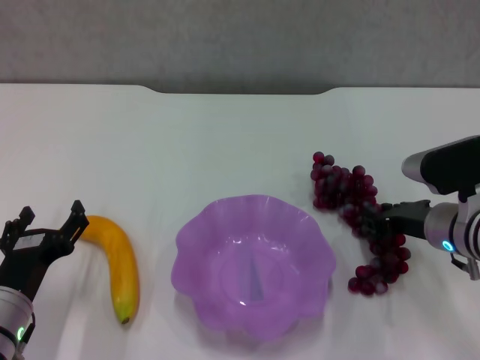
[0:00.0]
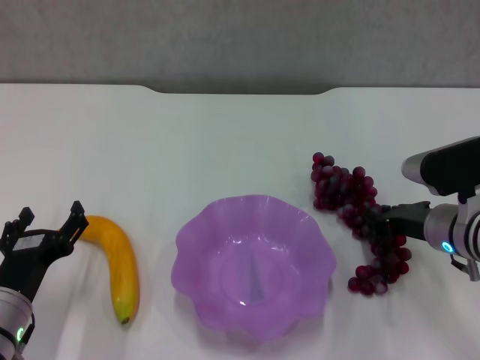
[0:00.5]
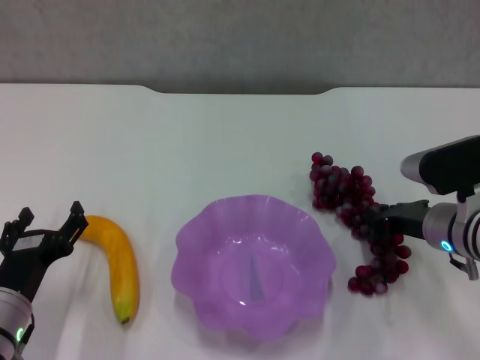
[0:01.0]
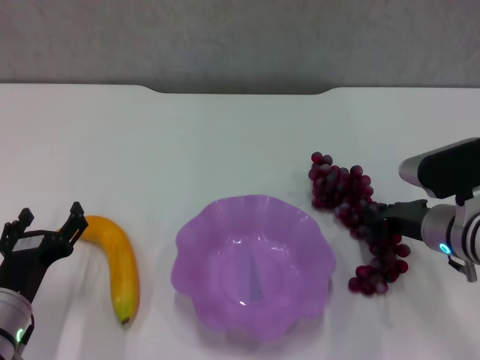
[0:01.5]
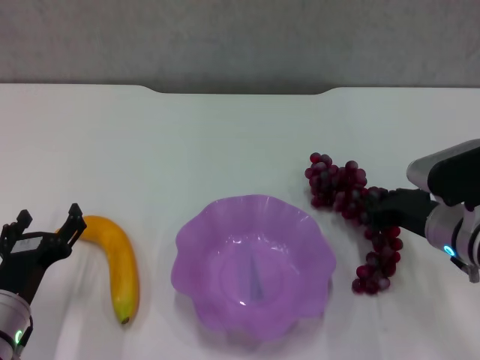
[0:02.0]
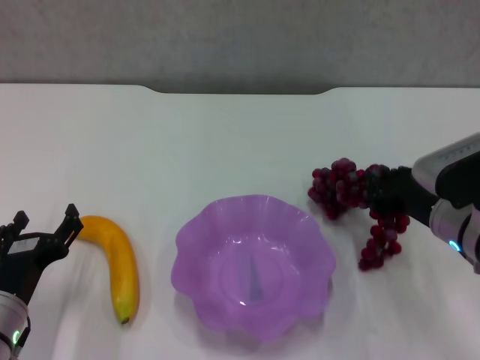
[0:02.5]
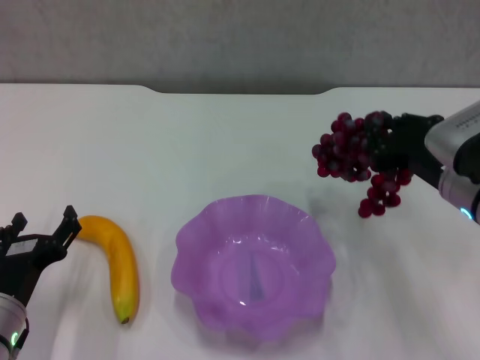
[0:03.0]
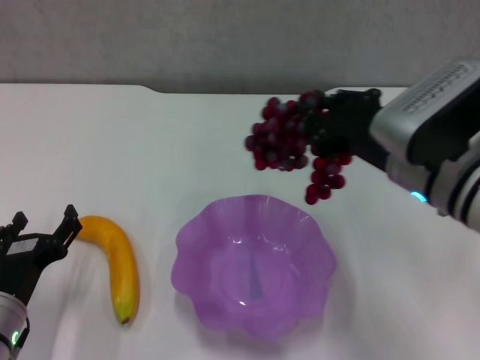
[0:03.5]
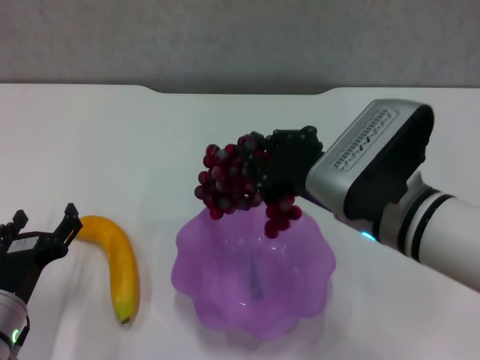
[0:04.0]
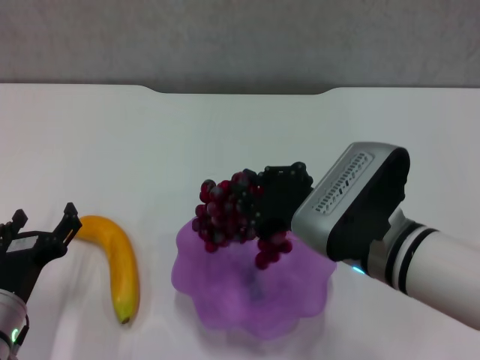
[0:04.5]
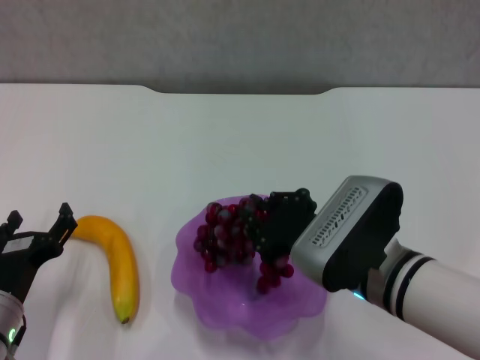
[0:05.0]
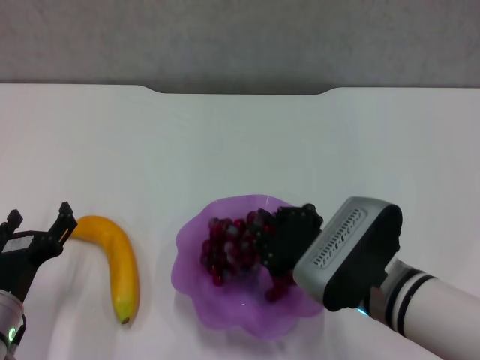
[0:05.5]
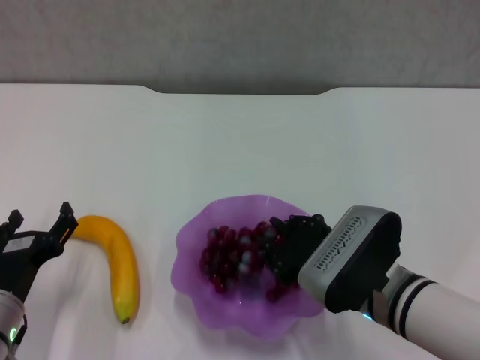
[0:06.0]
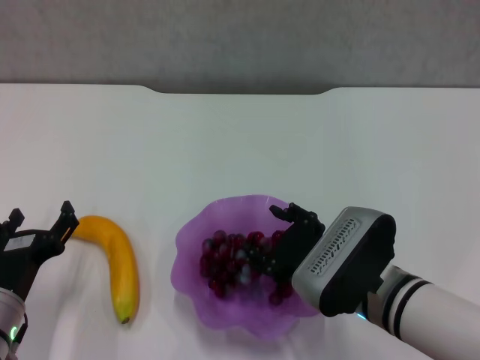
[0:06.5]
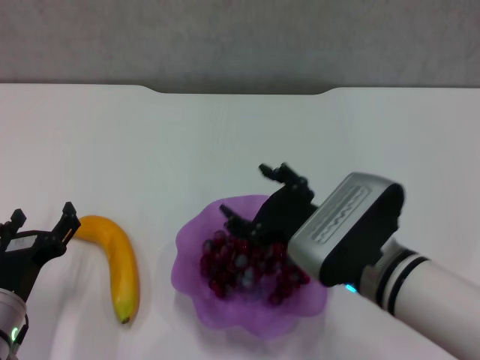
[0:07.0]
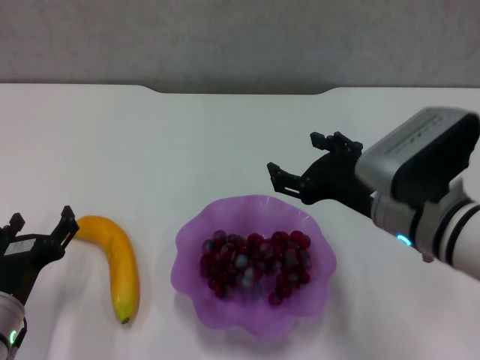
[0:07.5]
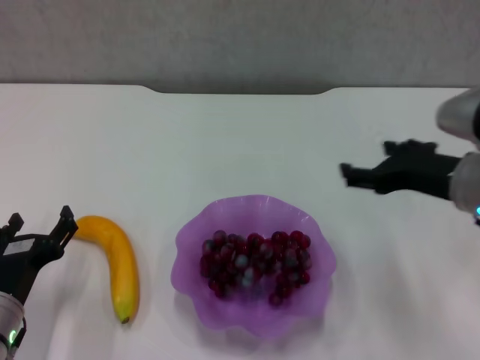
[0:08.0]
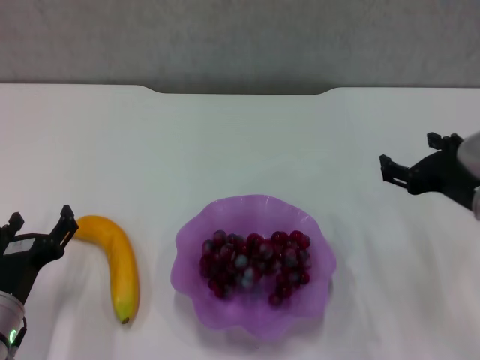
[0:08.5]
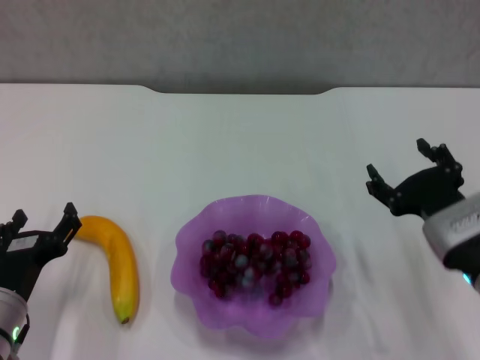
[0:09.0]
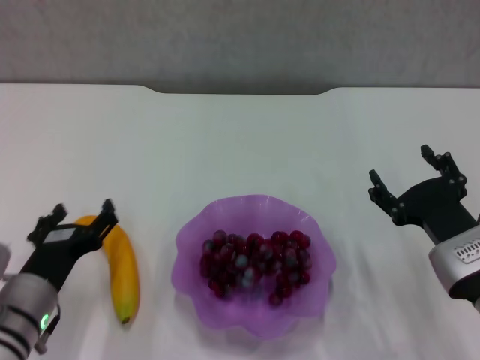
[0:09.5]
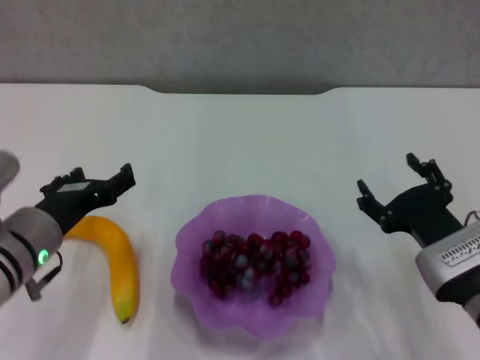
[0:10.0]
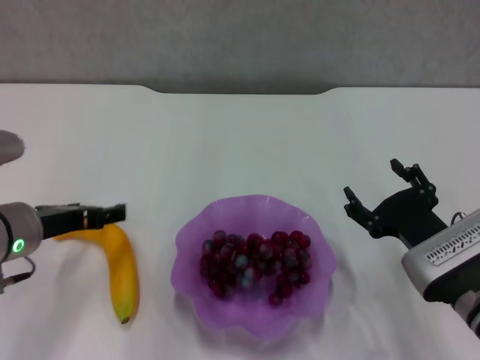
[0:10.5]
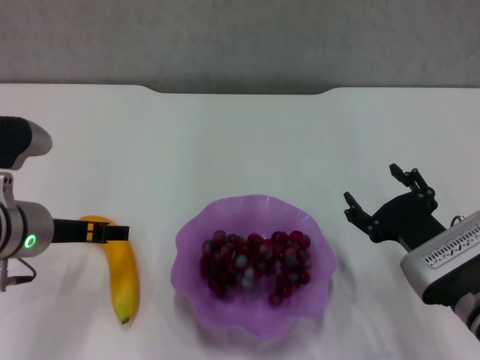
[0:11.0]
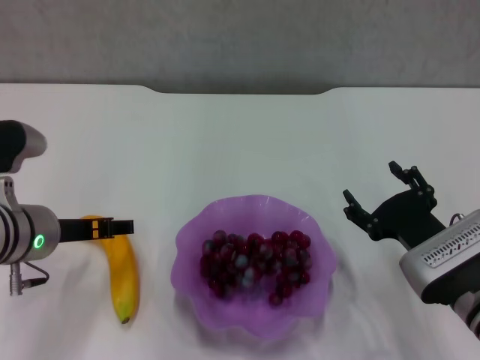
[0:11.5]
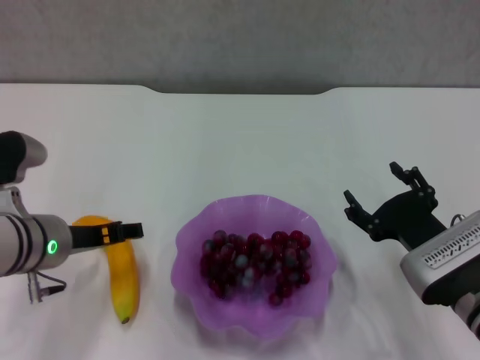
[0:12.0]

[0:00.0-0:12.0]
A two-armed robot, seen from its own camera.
Step, 0:01.5 to 0:07.0: Place the grape in the purple plate with right gripper.
0:00.0 to 0:02.0: There are only small adjustments of the grippers.
0:02.0 to 0:04.0: The right gripper heads to the left and upward, covering some 15 cm.
0:04.0 to 0:06.0: The right gripper shifts approximately 10 cm downward.
0:06.0 to 0:08.0: The right gripper heads upward and to the right, covering approximately 15 cm, and opens its fingers.
0:08.0 to 0:10.0: The right gripper moves downward, roughly 10 cm; the left gripper shifts roughly 10 cm upward.

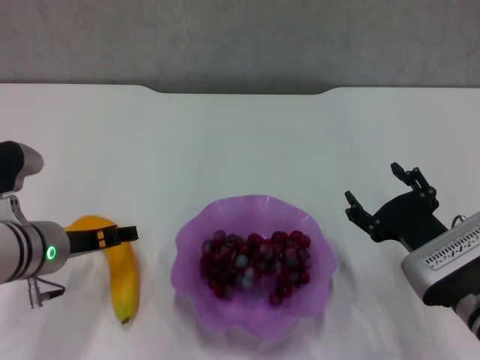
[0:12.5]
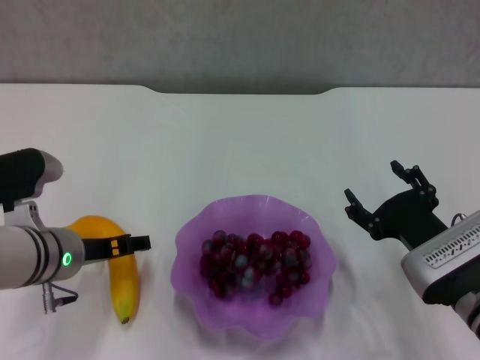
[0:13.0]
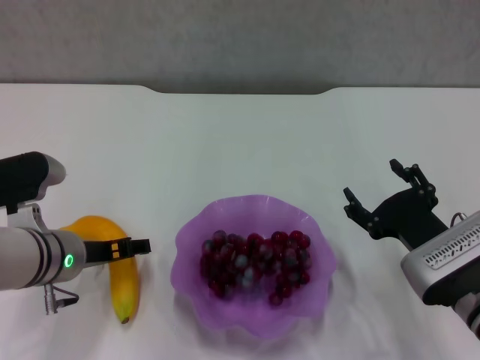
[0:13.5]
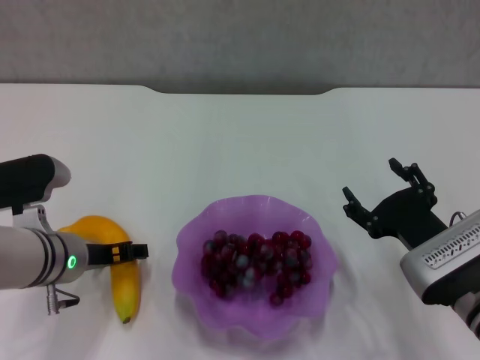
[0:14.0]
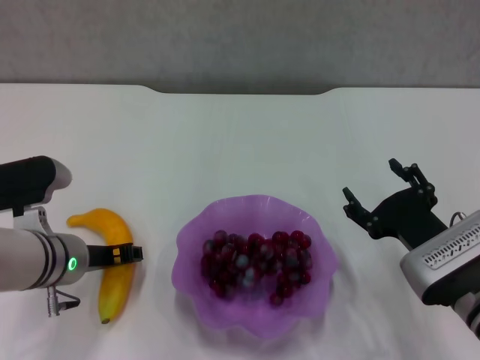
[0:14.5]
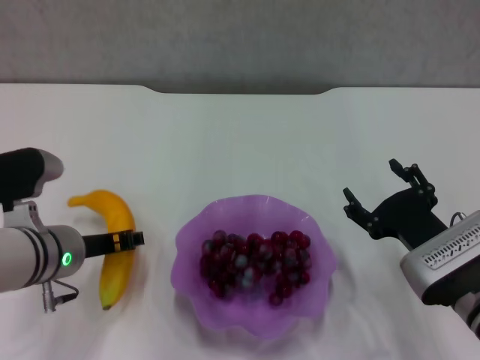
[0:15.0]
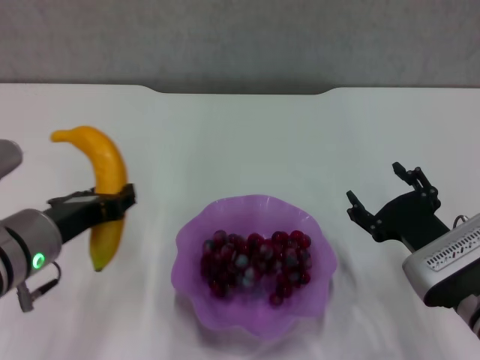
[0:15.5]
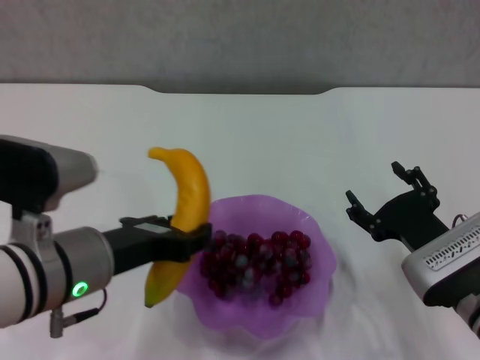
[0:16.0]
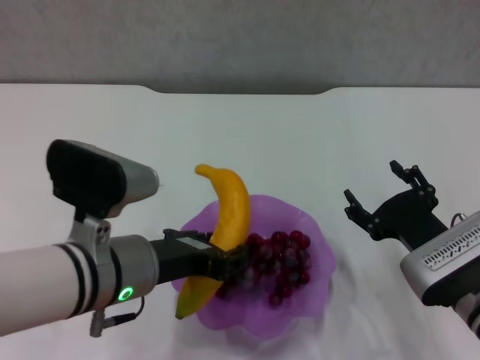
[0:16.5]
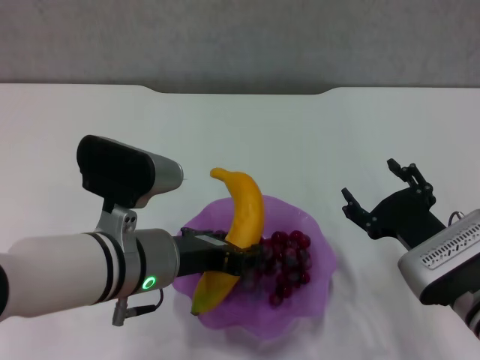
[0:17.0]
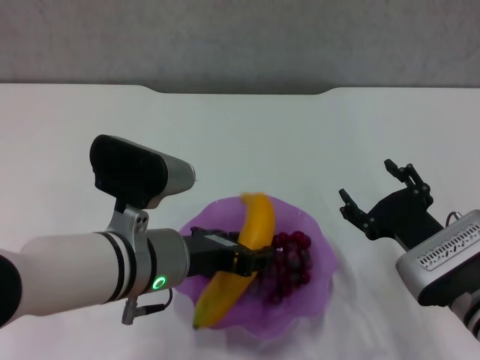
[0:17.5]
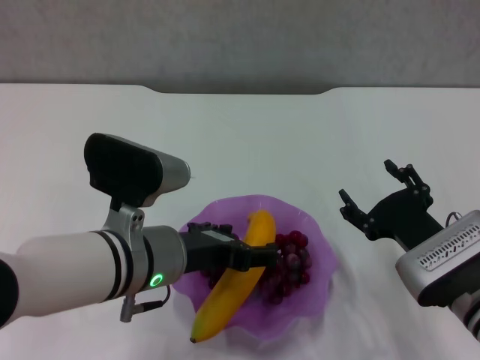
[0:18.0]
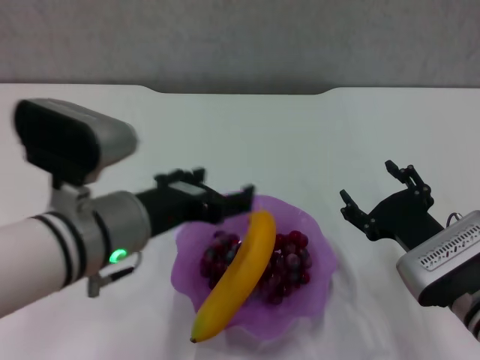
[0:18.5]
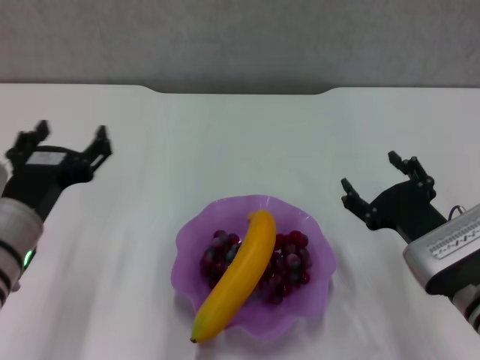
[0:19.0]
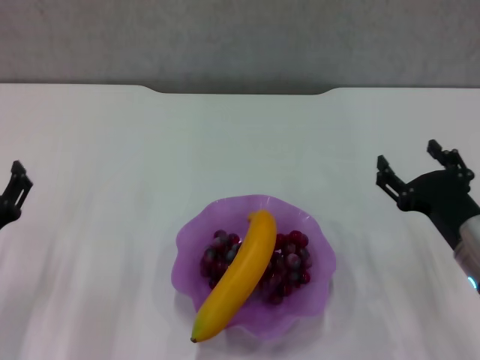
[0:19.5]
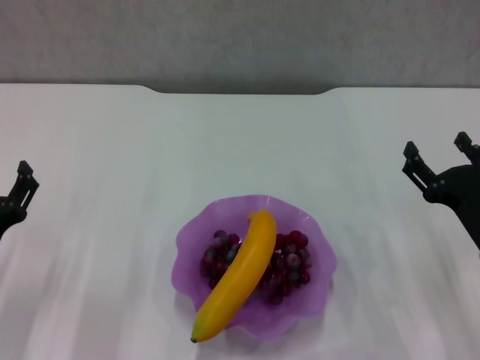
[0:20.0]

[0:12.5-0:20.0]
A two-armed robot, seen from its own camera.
Step, 0:12.5 to 0:14.5: Grasp the banana with left gripper.
Step, 0:15.0 to 0:18.5: Place the banana in the purple plate with left gripper.
0:12.5 to 0:14.5: The left gripper closes its fingers.
0:14.5 to 0:16.5: The left gripper travels to the right, upward and backward by some 10 cm, and closes.
0:16.5 to 0:18.0: The left gripper opens.
0:18.0 to 0:20.0: The right gripper heads to the right, covering some 5 cm, while the left gripper goes some 20 cm to the left and downward.

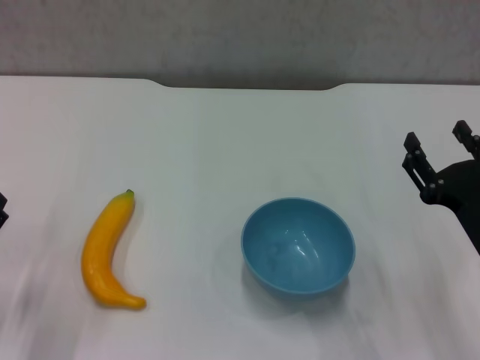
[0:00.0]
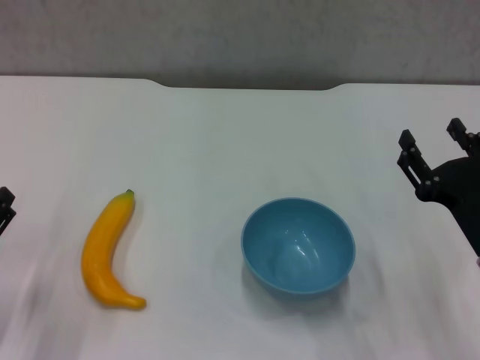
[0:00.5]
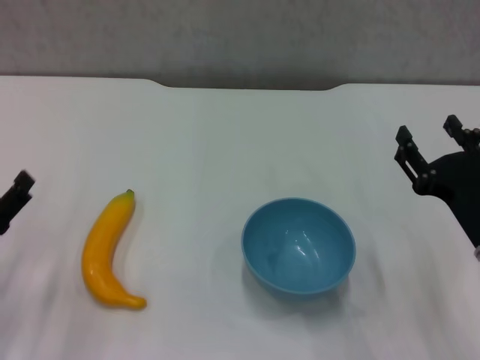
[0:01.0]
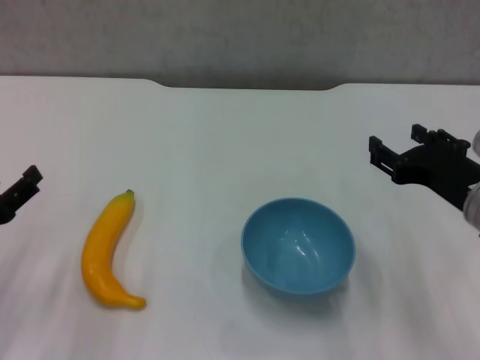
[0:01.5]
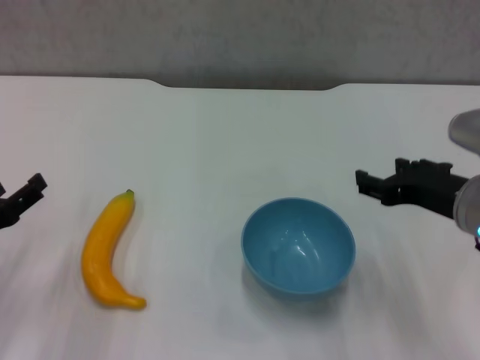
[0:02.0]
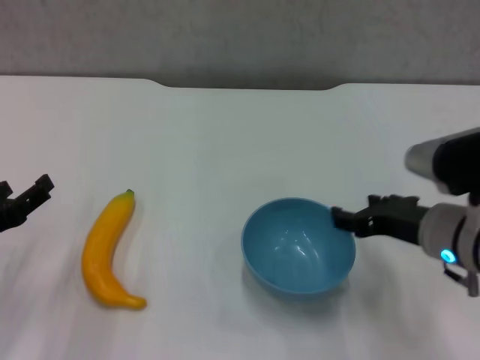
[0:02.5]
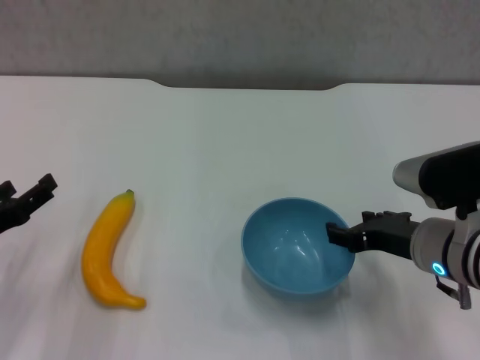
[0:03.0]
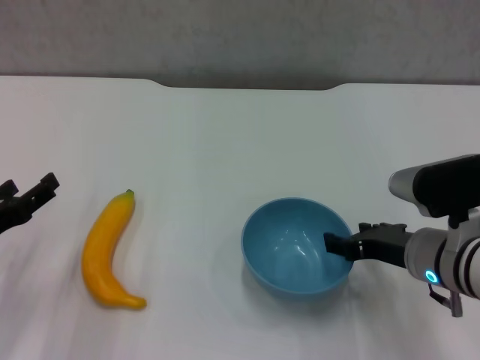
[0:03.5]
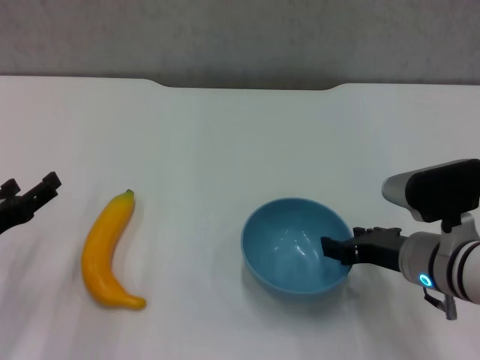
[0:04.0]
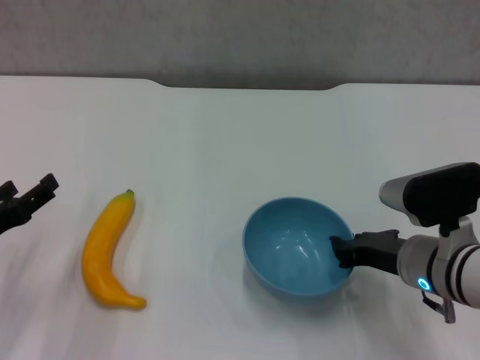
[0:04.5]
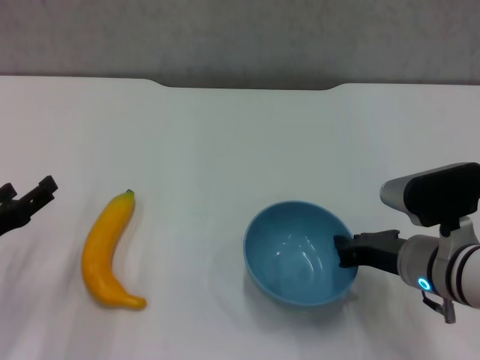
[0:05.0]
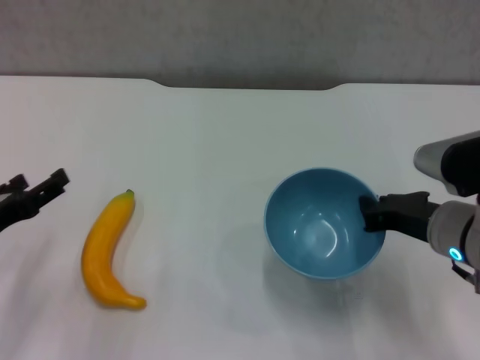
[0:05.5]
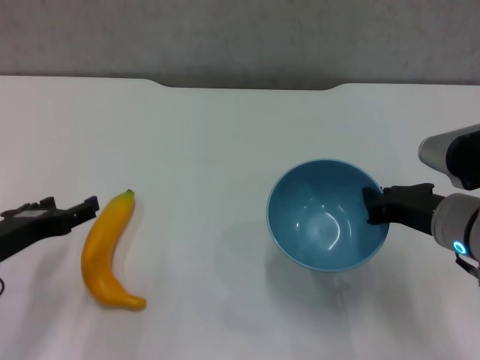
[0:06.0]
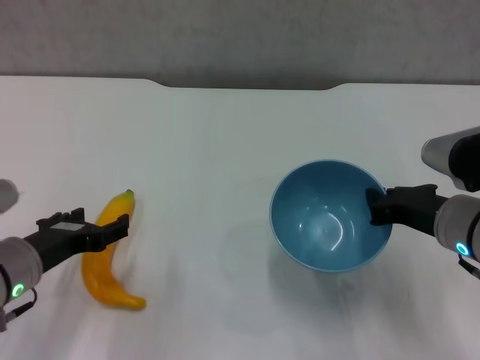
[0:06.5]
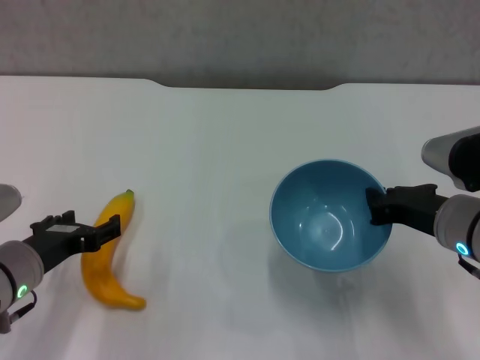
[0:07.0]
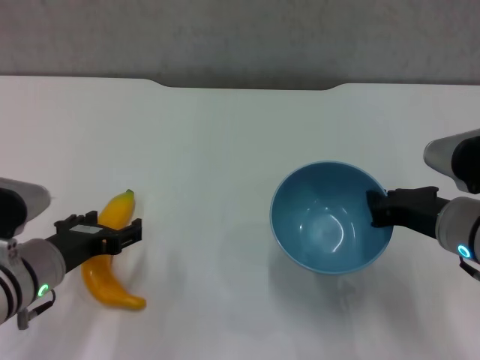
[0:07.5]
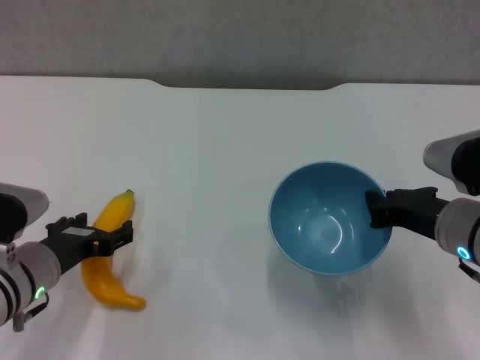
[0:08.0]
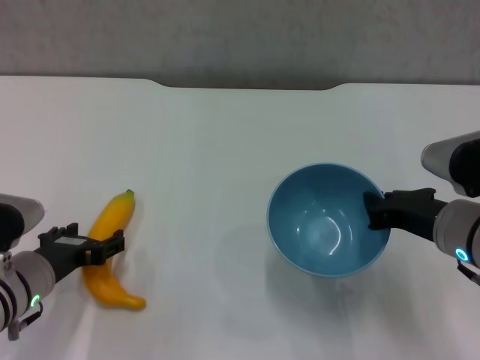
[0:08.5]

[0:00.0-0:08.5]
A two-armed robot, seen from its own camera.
Step, 0:00.0 to 0:04.5: Grasp the blue bowl with right gripper.
Step, 0:05.0 to 0:05.5: Lift the blue bowl with right gripper.
0:00.0 to 0:02.0: The right gripper goes roughly 10 cm upward and forward. The left gripper goes about 5 cm upward.
0:02.0 to 0:04.0: The right gripper travels downward by about 5 cm.
0:04.0 to 0:06.5: The left gripper goes approximately 5 cm to the right. Meanwhile the right gripper closes its fingers.
0:06.5 to 0:08.5: The grippers stay close to where they were, moving slightly.
